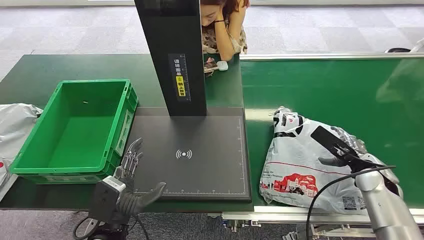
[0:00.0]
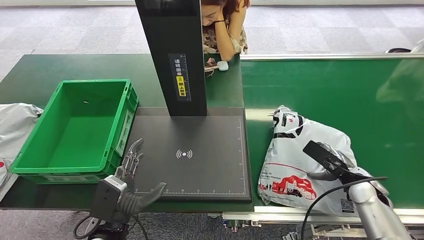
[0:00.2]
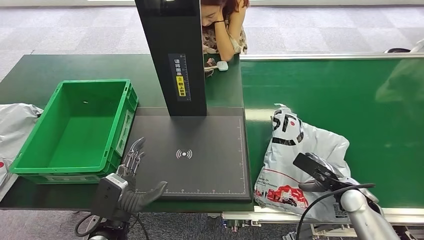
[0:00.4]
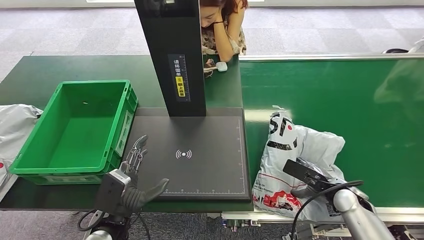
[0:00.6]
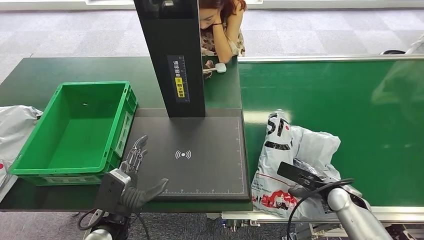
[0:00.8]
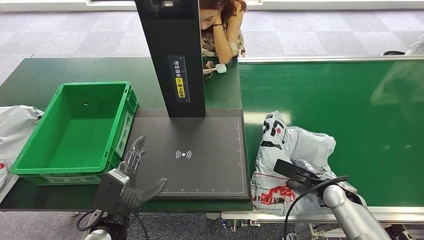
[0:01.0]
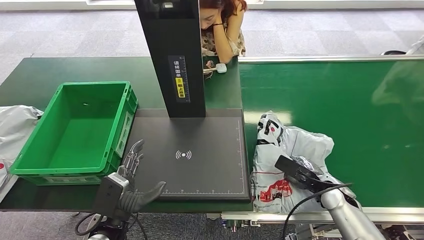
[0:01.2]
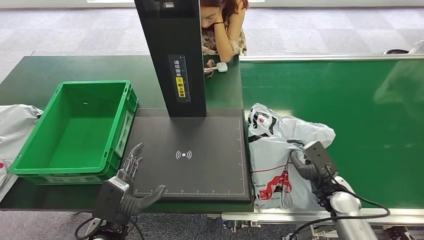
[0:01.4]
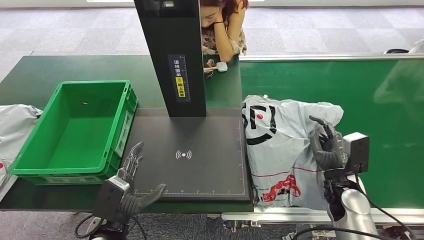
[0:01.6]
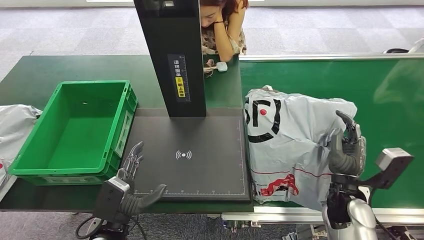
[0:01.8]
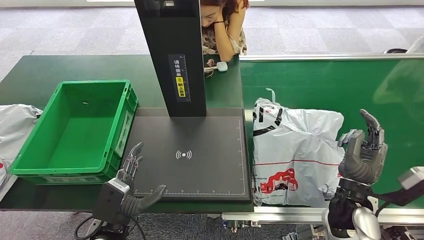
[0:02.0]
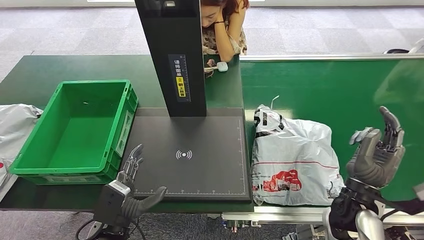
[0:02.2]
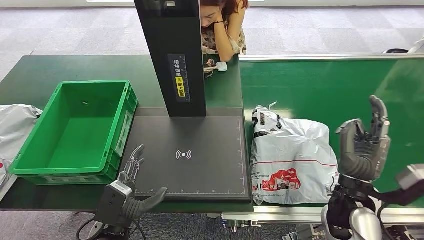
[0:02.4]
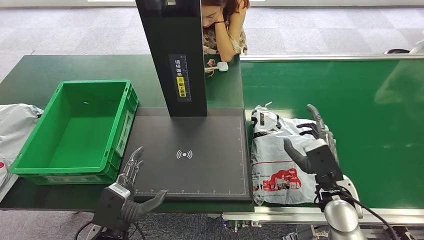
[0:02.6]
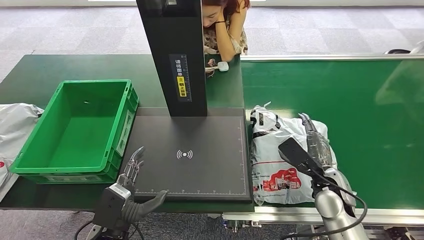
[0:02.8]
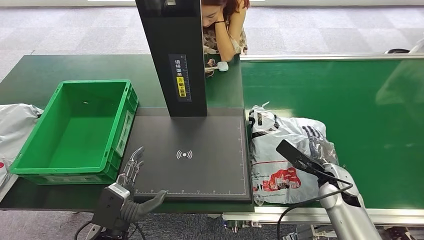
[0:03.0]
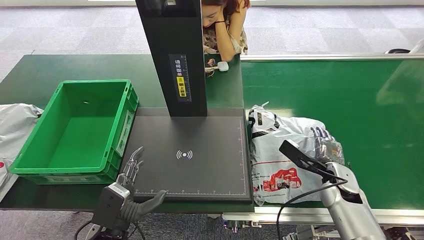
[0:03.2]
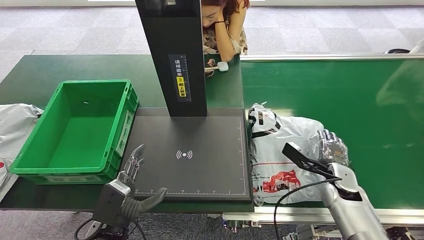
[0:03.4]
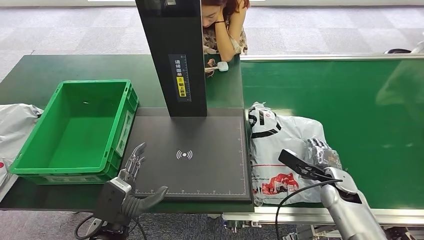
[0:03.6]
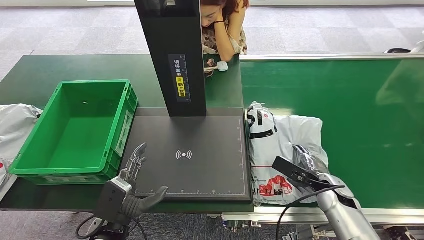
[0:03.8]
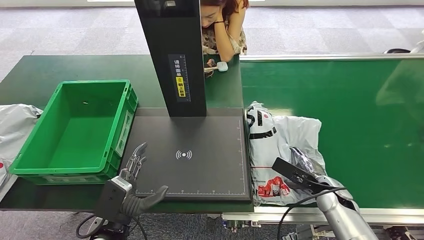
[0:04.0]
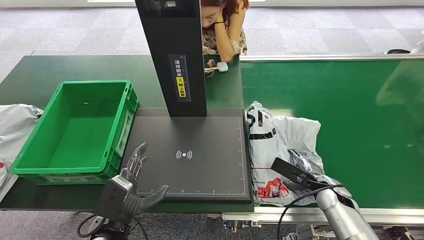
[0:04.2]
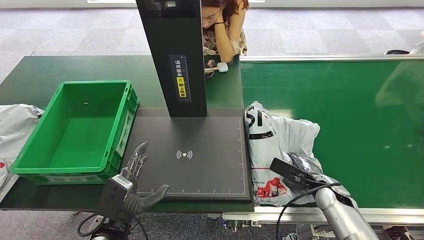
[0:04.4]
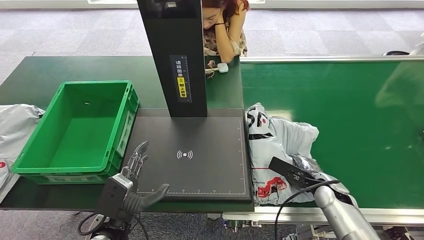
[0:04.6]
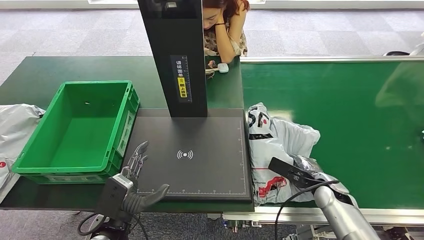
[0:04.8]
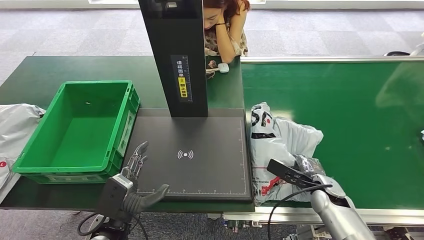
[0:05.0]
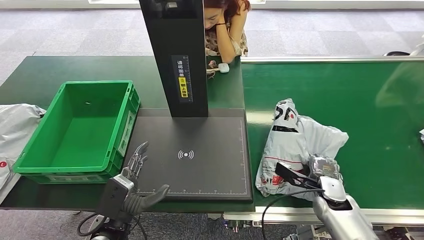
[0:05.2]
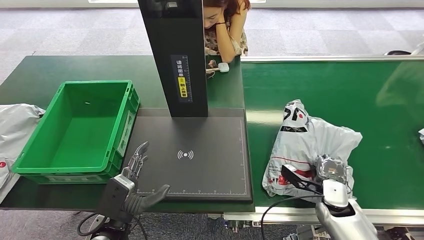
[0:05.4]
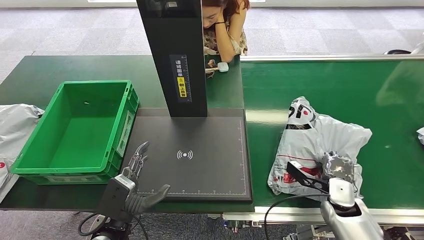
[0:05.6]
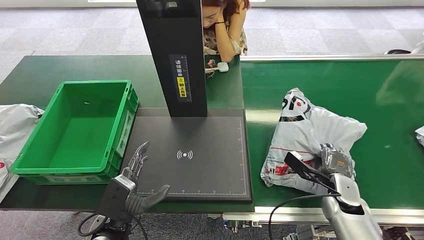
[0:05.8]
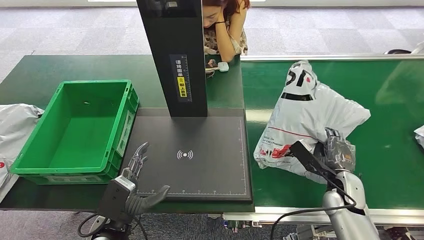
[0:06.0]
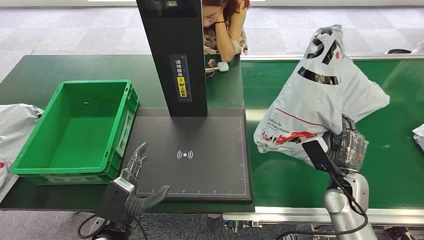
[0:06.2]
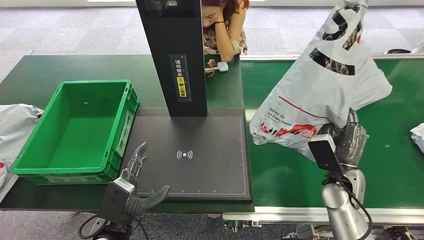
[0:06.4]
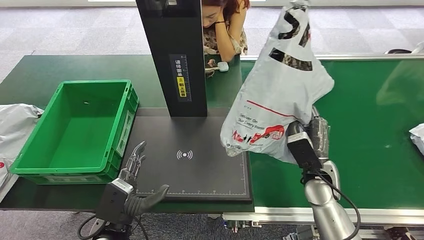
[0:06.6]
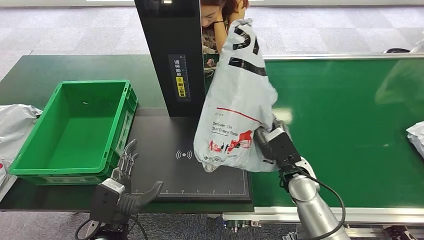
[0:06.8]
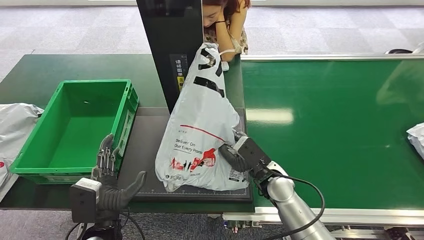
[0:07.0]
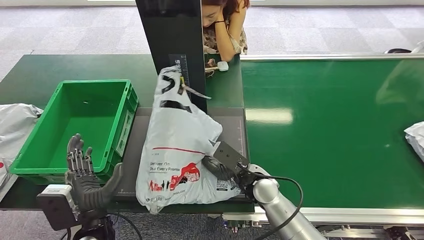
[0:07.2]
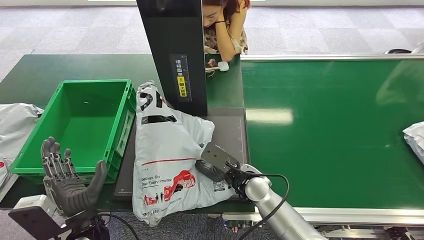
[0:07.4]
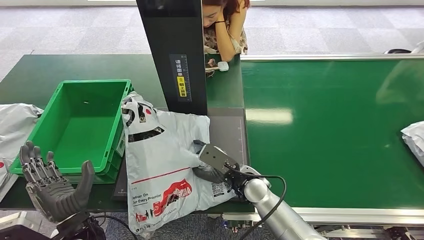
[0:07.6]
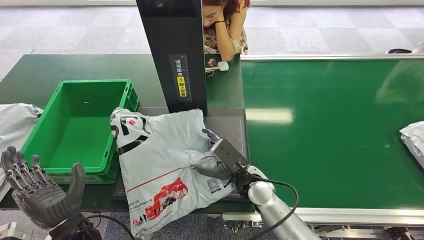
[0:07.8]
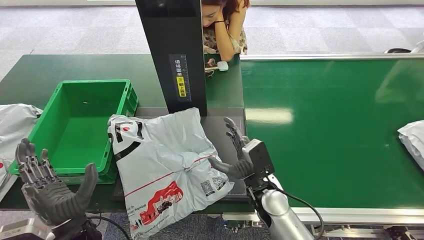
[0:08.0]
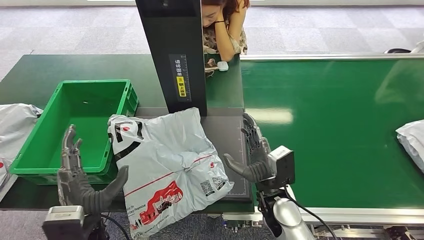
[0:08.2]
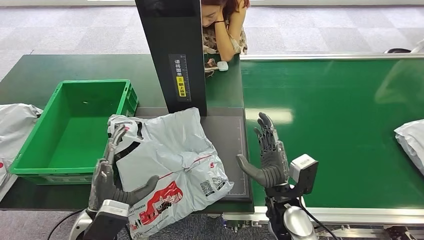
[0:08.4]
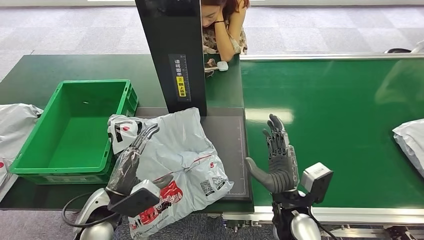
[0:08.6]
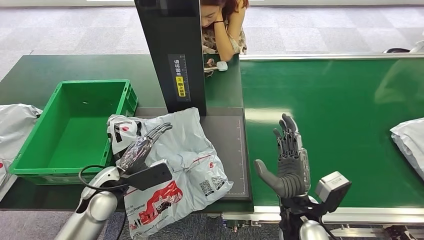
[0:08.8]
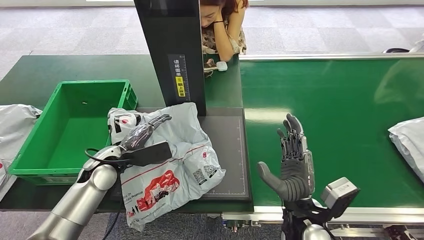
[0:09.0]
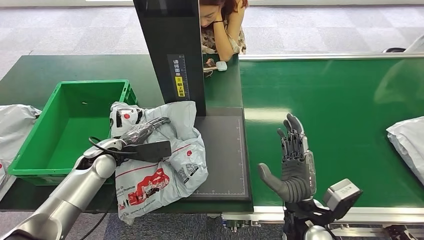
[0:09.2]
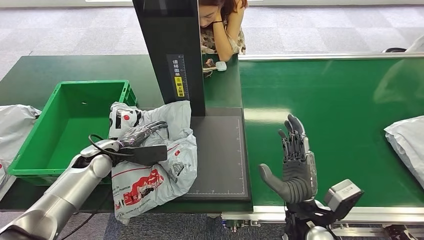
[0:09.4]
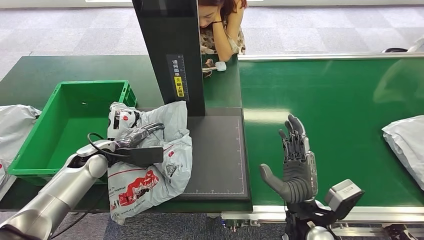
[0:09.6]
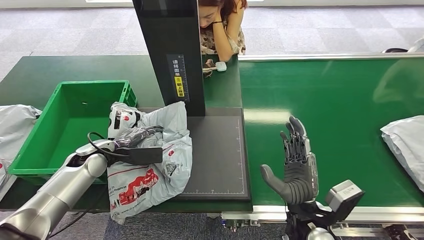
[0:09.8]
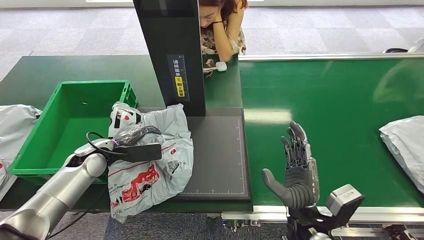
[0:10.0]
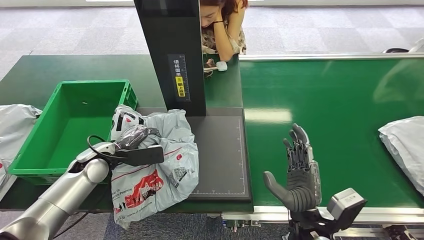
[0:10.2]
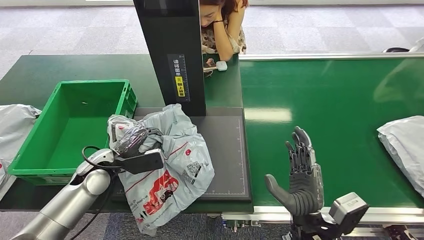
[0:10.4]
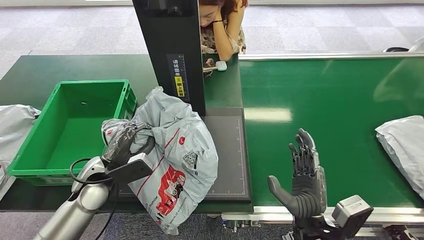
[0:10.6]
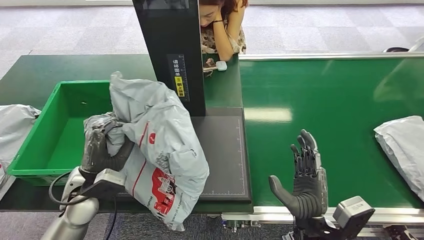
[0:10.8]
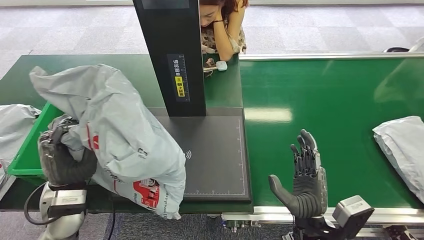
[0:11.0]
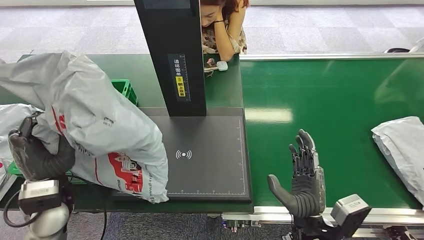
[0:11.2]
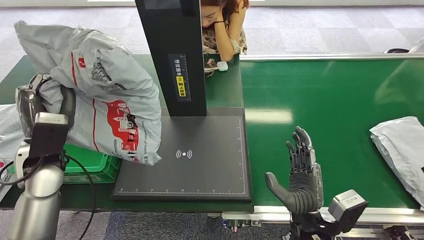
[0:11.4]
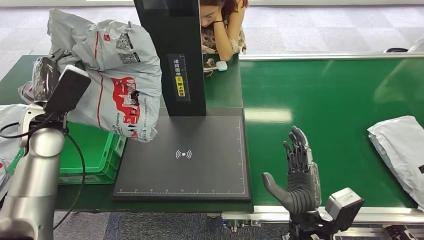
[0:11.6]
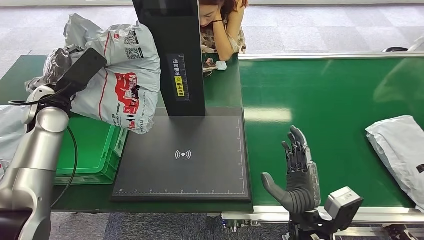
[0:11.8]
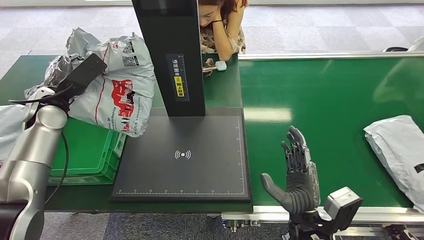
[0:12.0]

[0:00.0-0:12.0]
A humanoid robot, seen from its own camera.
Step, 0:00.0 to 0:06.0: Pick up the package from the conveyor belt.
Step, 0:06.2 to 0:09.4: Place the package onto the inbound machine.
Step, 0:09.6 to 0:11.2: Pick up the package from the inbound machine.
0:03.0 to 0:04.4: The right hand is displaced downward by some 5 cm.

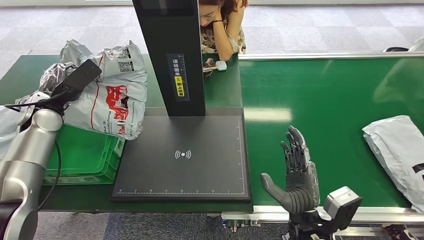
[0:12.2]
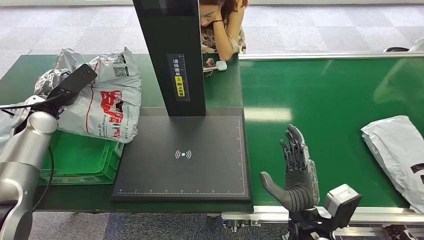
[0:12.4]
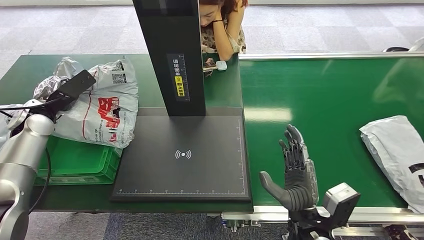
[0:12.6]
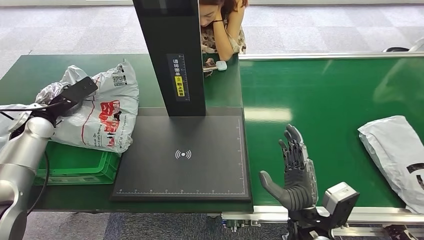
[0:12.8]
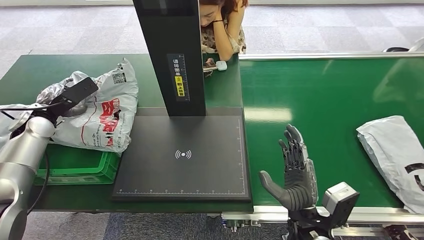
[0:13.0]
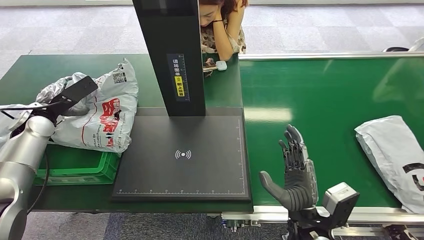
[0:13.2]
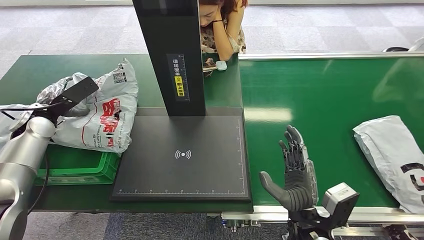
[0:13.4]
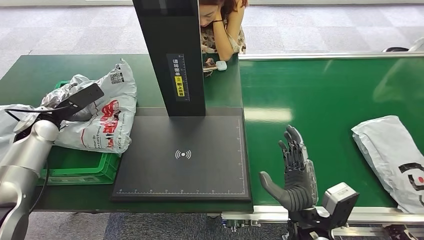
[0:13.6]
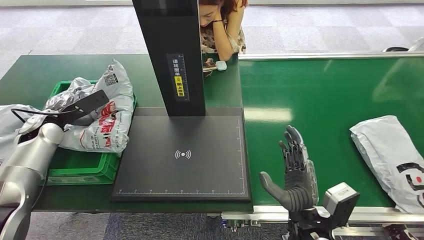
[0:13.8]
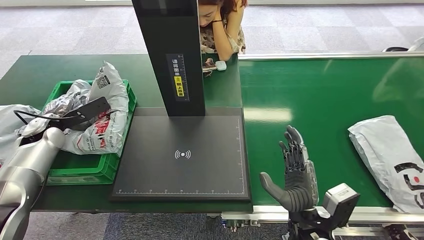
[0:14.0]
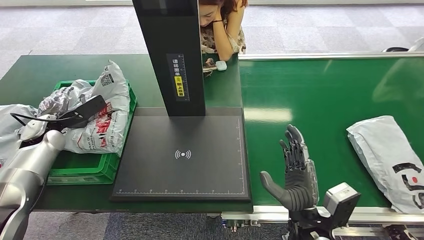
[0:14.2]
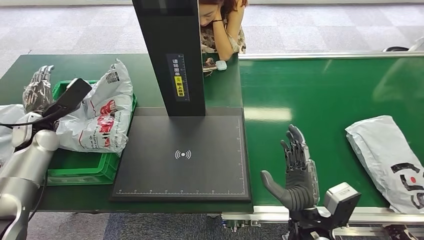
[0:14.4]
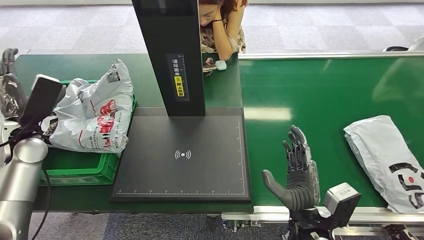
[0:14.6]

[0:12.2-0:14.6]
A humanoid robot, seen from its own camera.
Step, 0:12.2 to 0:14.6: Place the package into the parcel locker.
0:12.2 to 0:13.4: There are only small adjustments of the hands.
0:13.4 to 0:14.6: The left hand moves backward, roughly 5 cm.
